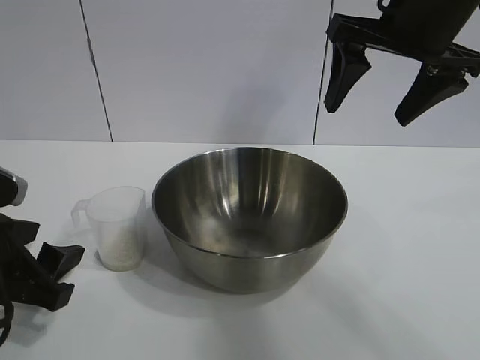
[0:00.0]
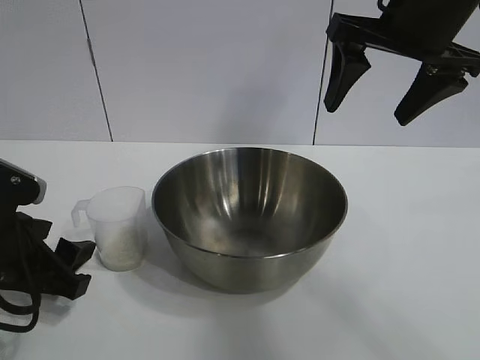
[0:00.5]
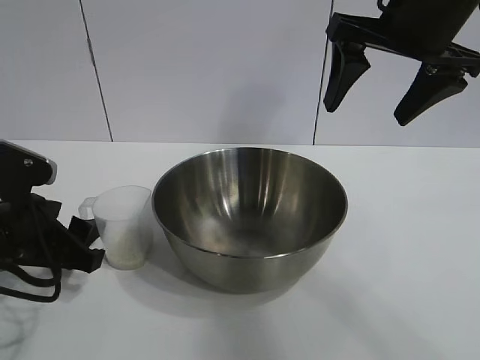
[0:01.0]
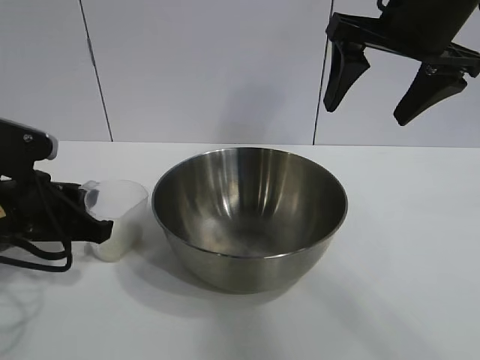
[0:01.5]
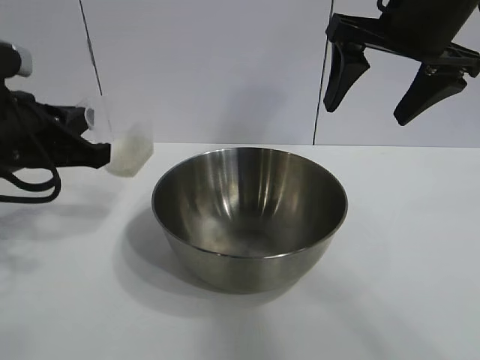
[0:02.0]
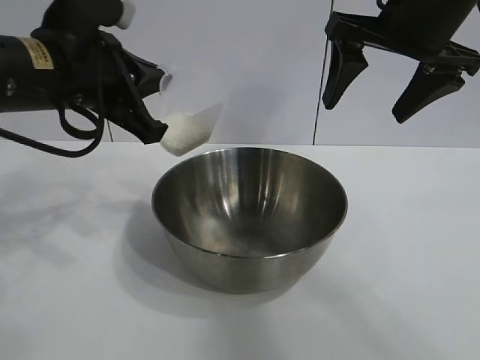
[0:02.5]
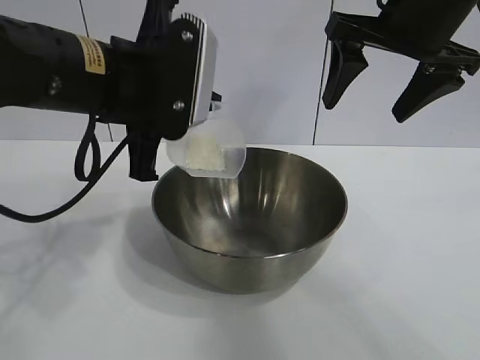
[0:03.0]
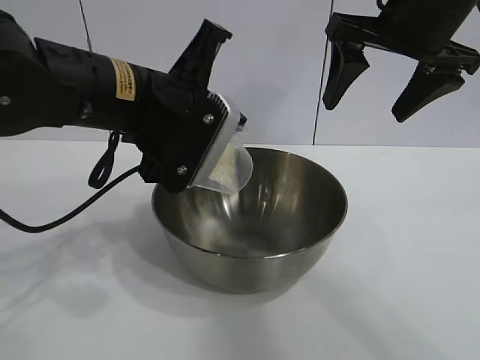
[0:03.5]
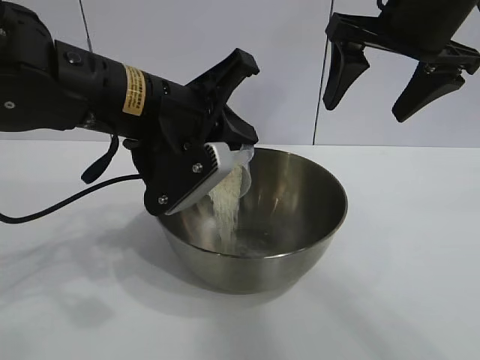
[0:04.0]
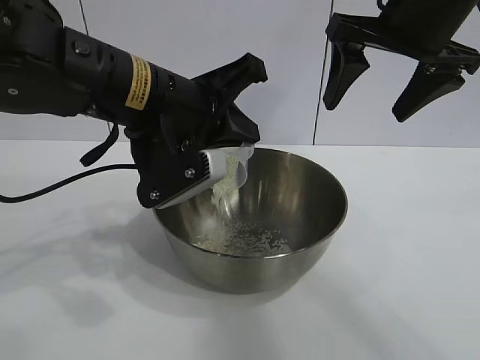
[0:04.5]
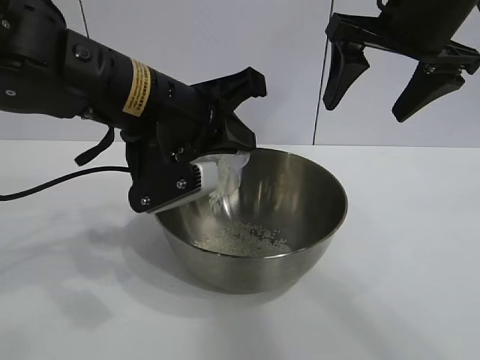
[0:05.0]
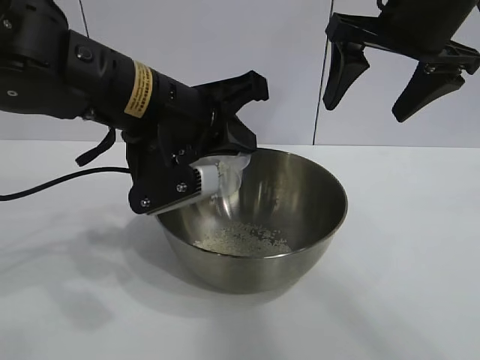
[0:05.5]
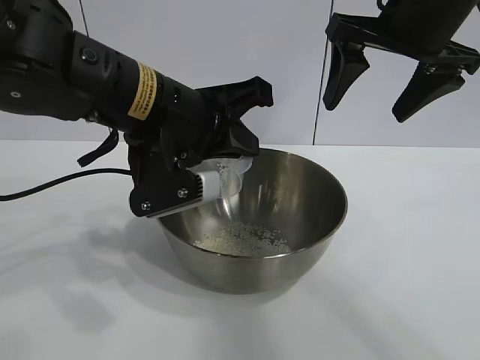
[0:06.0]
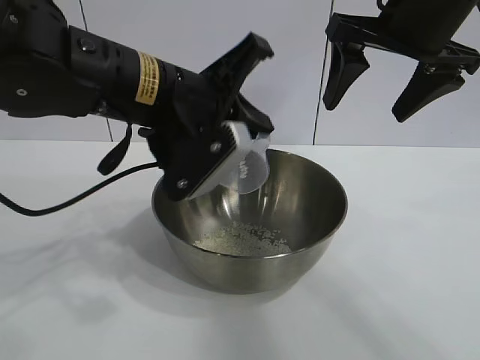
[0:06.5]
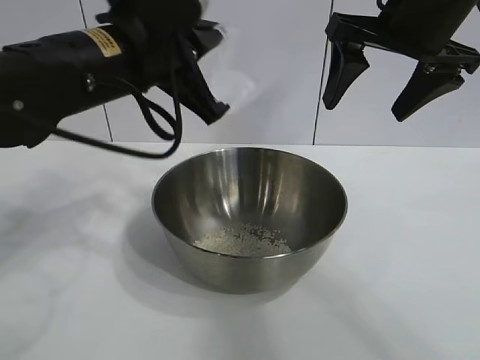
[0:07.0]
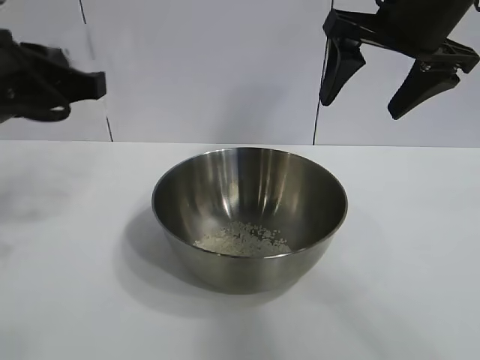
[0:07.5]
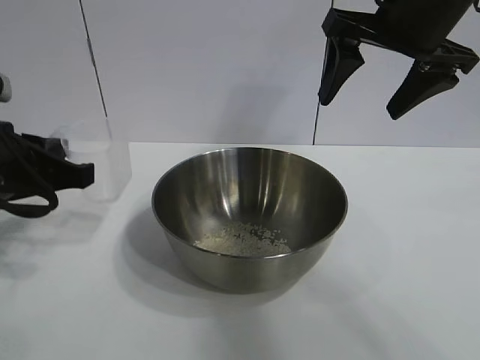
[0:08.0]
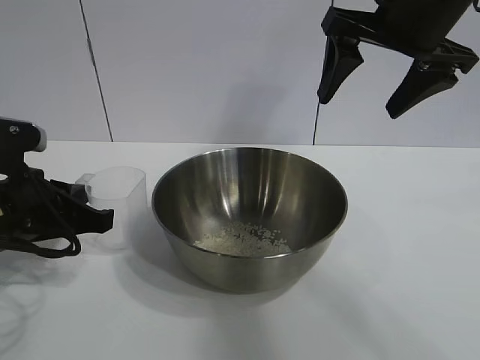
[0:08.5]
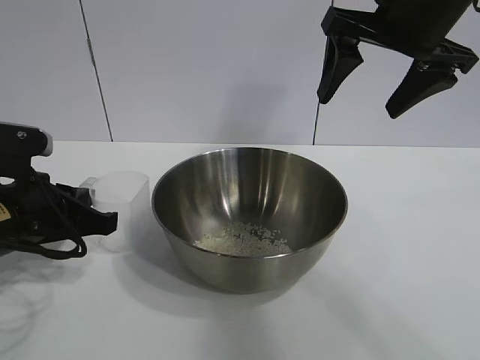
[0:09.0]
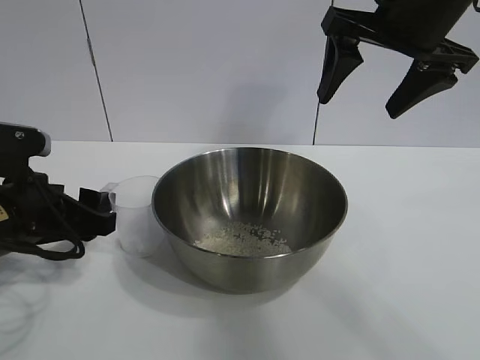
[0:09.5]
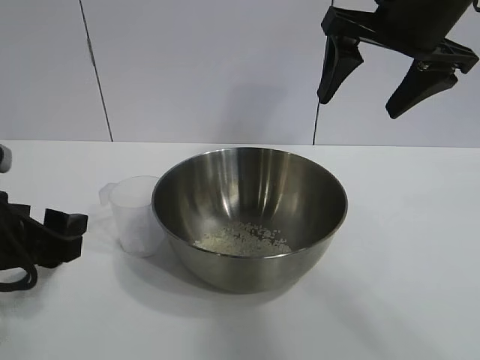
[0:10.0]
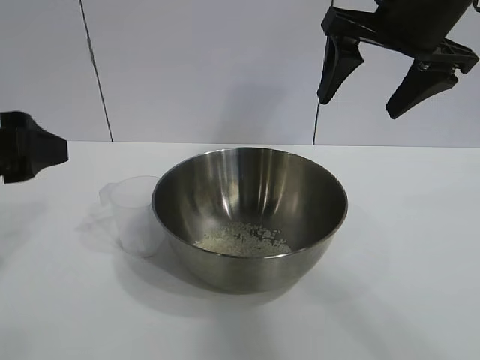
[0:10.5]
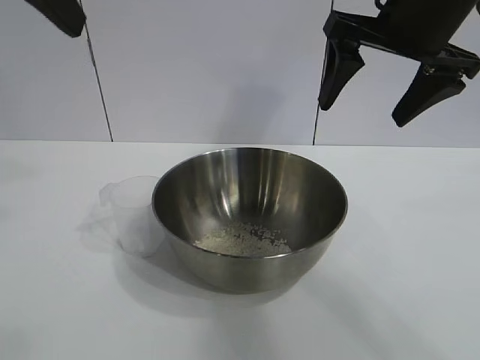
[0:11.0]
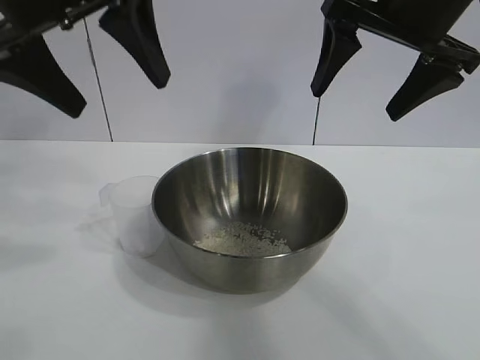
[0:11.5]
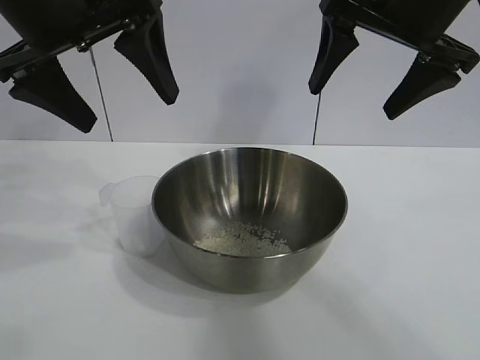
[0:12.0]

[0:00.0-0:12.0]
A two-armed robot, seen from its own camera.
Task of the whole recording: the right gripper grasp the rice container and place it in the center of the table, the left gripper grasp the rice scoop and pour the rice into the rice container.
Step, 0:02.0 to 0:05.5: Pour the rice from the cup into the bowl with the left gripper.
Step, 0:06.0 to 0:09.5: Place the cup on the table with the left gripper.
